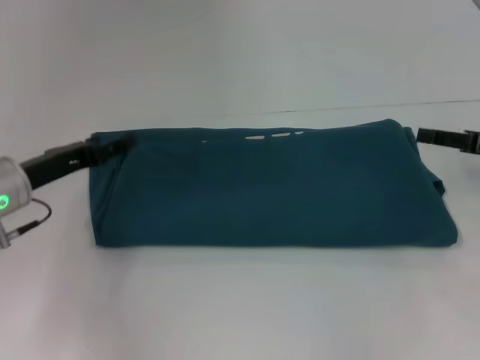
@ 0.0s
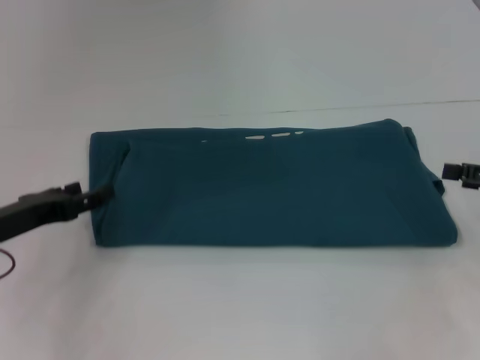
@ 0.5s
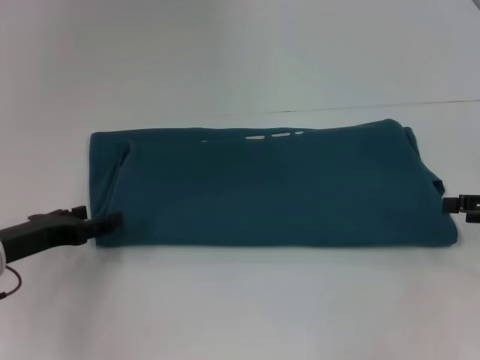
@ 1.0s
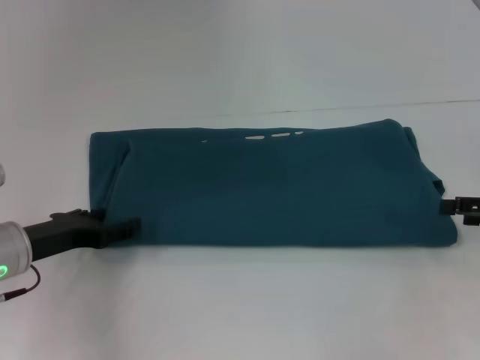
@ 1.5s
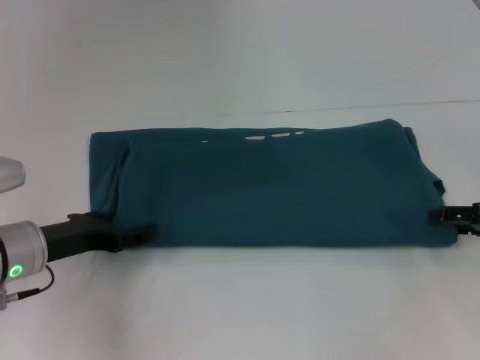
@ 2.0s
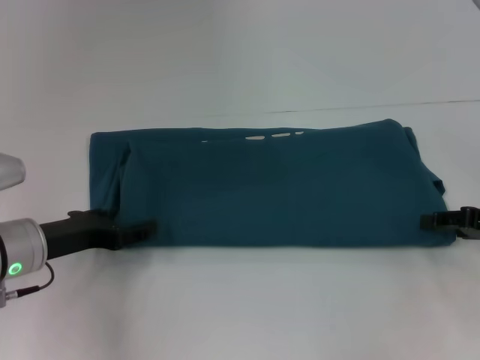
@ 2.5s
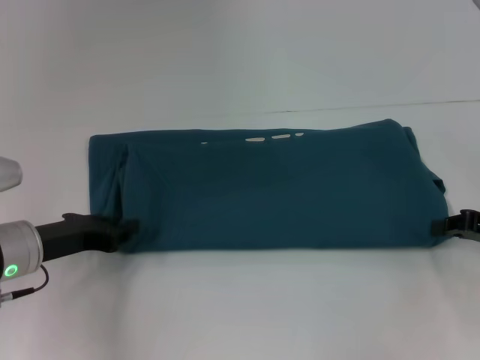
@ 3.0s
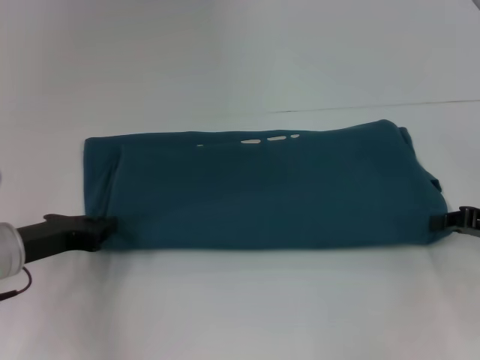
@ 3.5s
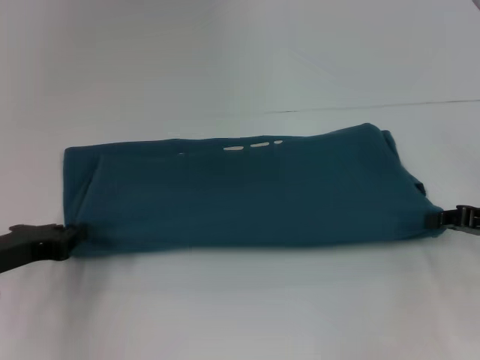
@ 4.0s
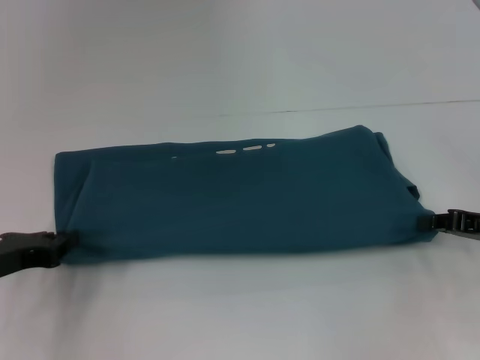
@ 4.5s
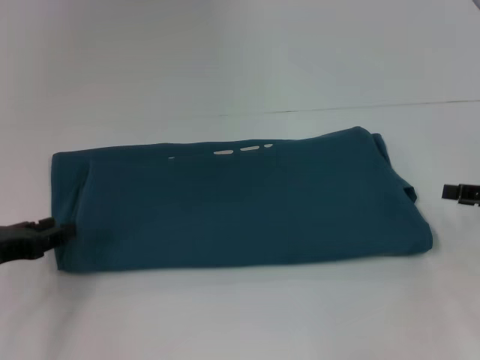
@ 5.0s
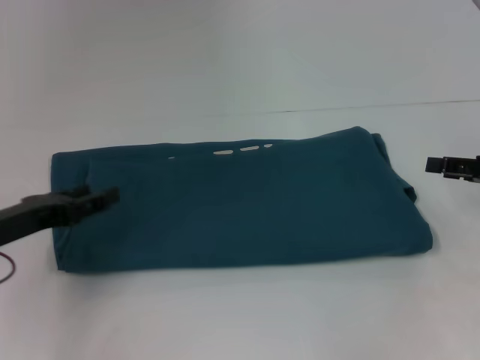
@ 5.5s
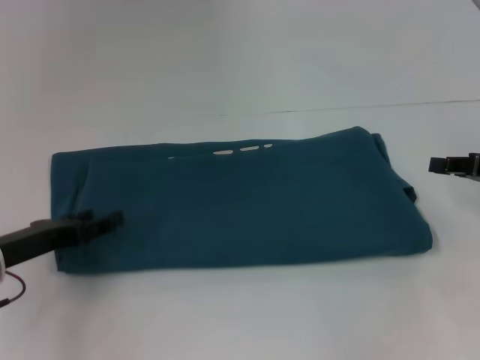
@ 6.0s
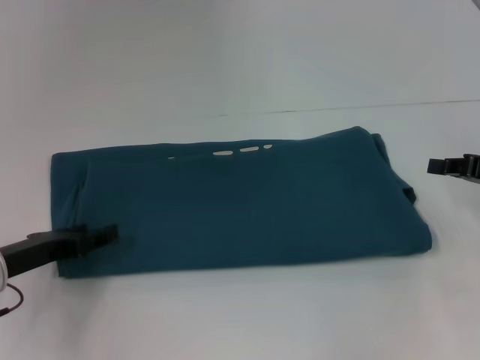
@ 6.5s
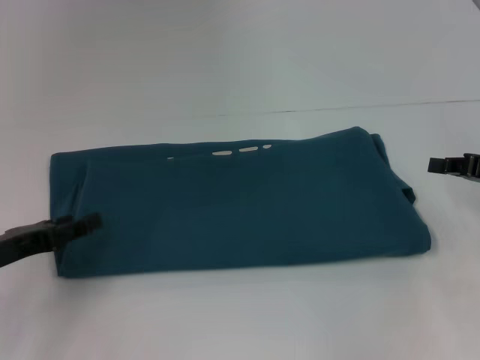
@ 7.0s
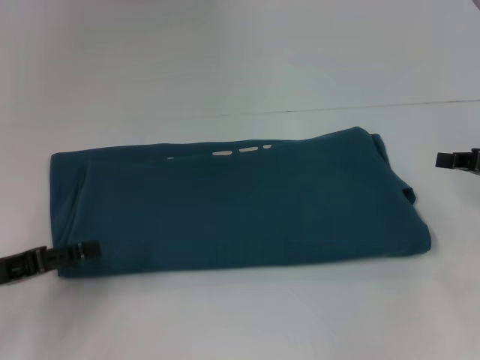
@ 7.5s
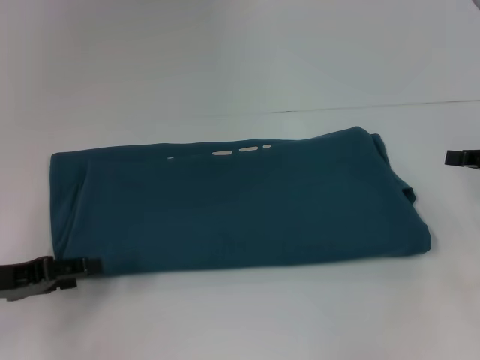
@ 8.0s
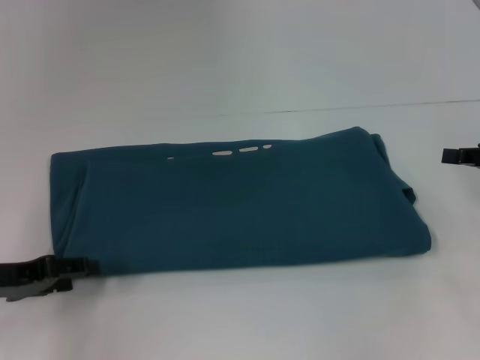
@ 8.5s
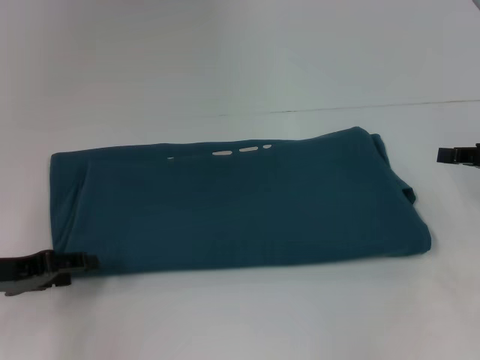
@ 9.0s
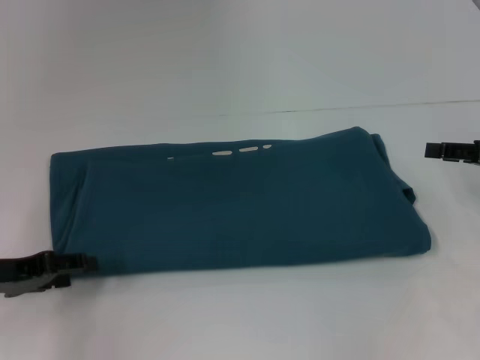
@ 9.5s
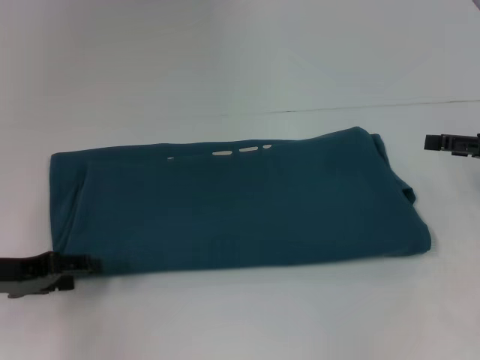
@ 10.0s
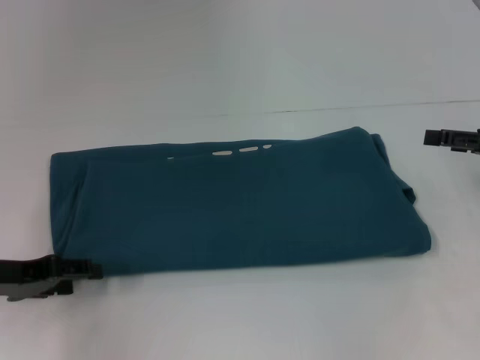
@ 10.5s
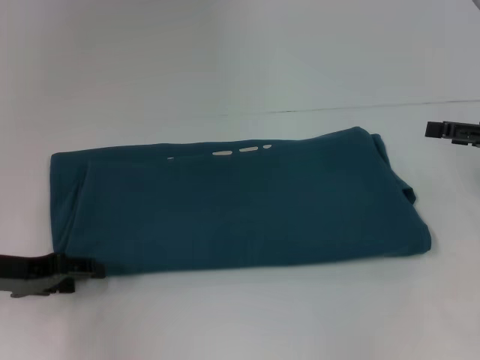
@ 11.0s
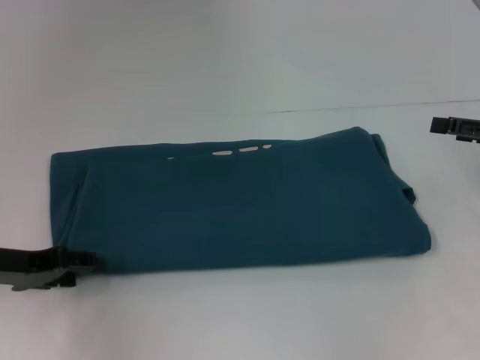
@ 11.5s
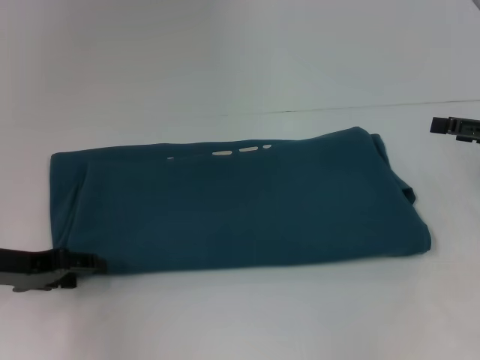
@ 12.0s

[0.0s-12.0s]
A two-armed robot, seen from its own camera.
0.0s to 2.0s: The left gripper changes place by approximately 5 cm, while the right gripper ends up approximately 5 cm from where it was.
2.0s to 4.0s: The right gripper closes up; the left gripper ends up roughly 5 cm from where it was, and closes its fingers.
4.0s to 6.0s: The left gripper opens up, while the right gripper opens and closes again.
8.0s to 10.0s: The right gripper opens up.
10.0s to 12.0s: The grippers make only small movements.

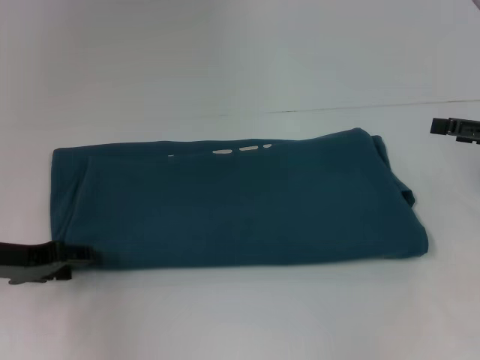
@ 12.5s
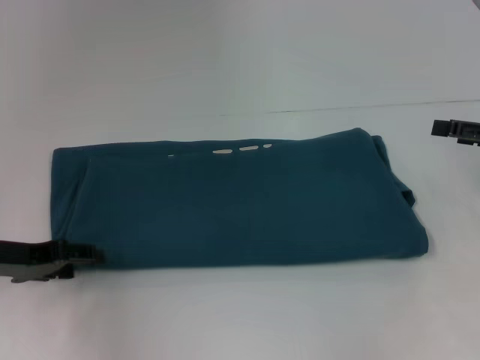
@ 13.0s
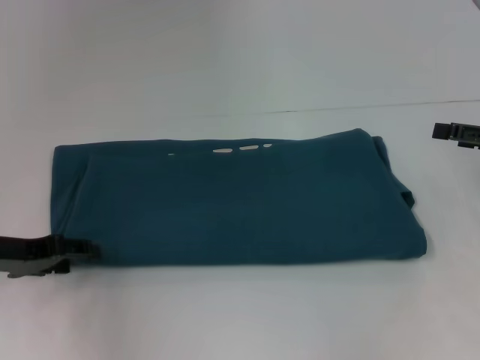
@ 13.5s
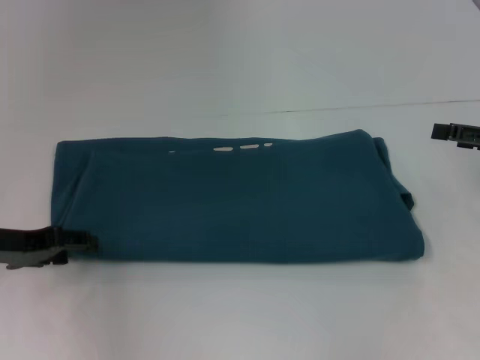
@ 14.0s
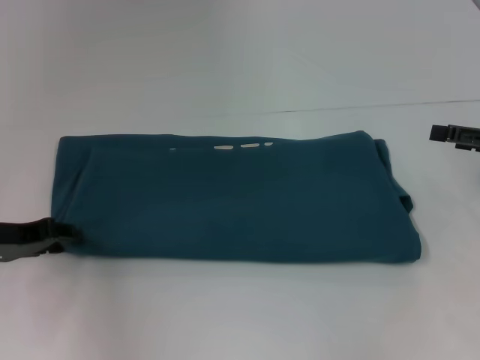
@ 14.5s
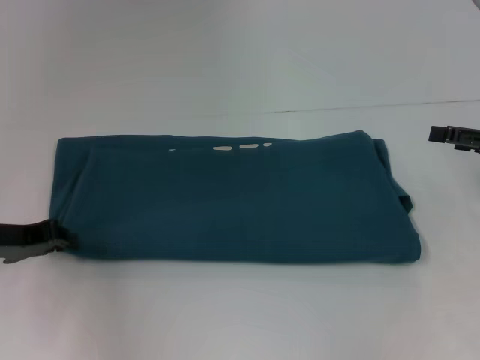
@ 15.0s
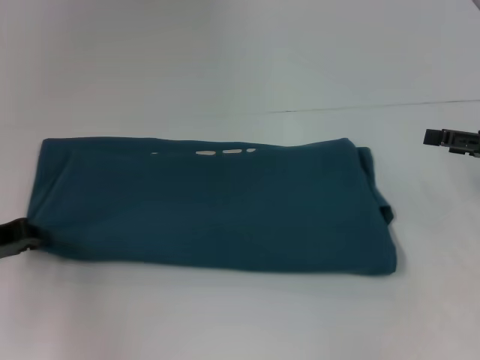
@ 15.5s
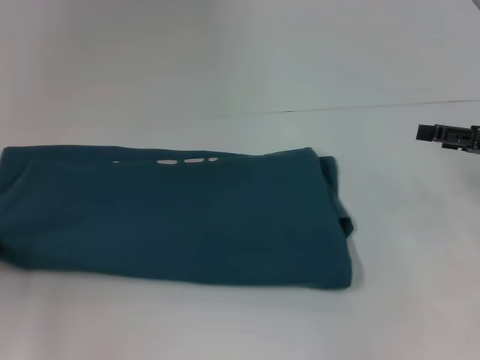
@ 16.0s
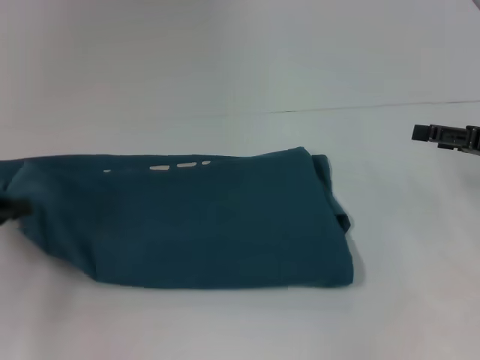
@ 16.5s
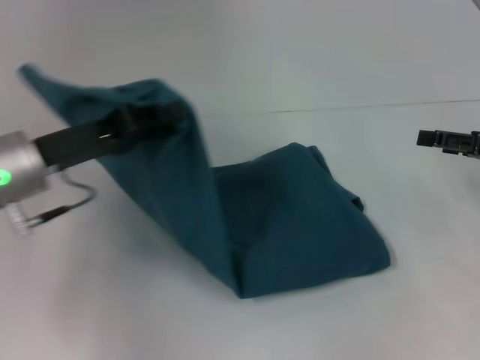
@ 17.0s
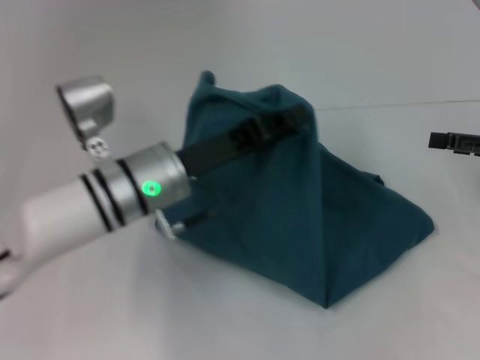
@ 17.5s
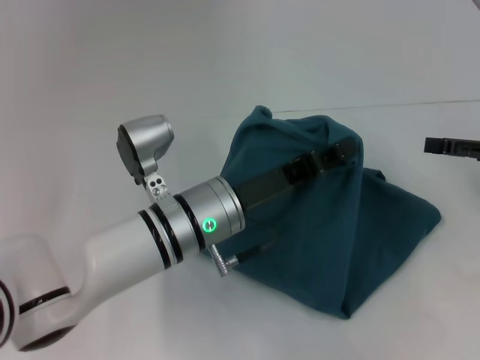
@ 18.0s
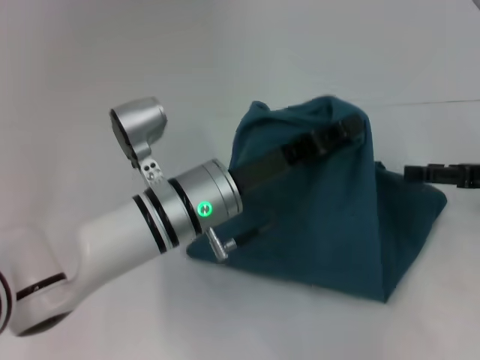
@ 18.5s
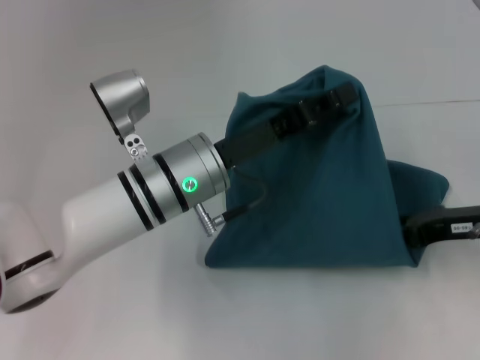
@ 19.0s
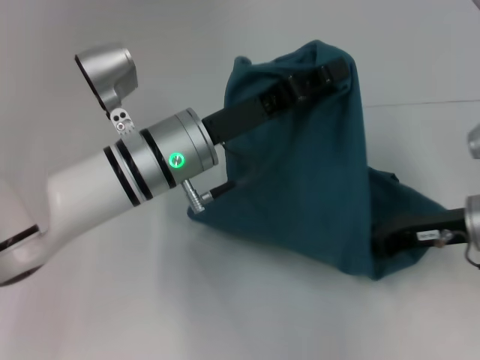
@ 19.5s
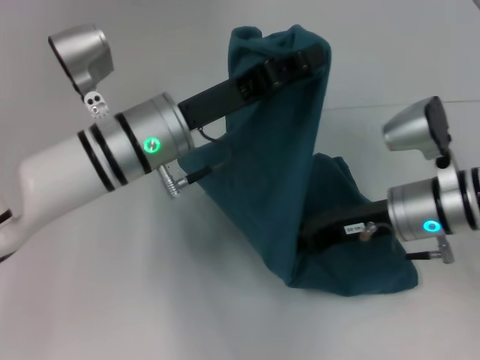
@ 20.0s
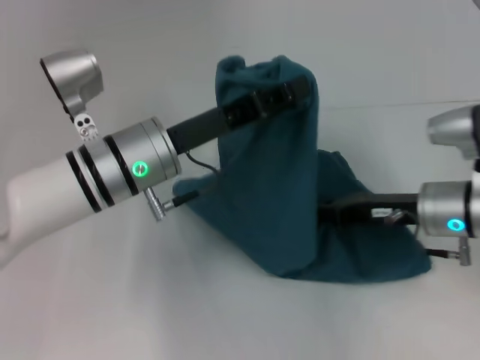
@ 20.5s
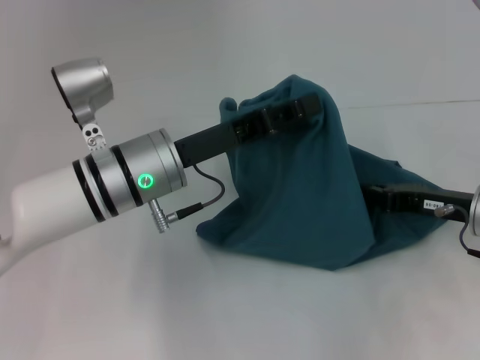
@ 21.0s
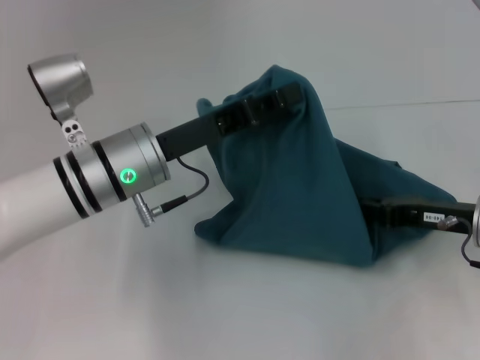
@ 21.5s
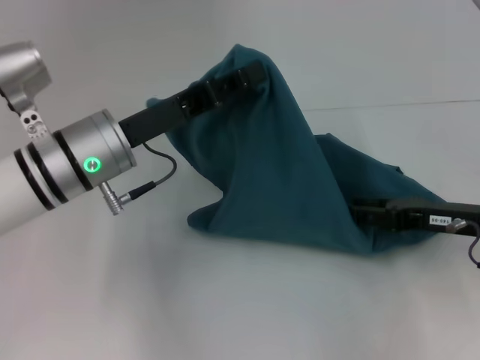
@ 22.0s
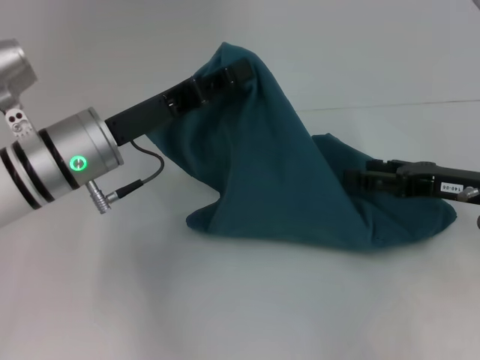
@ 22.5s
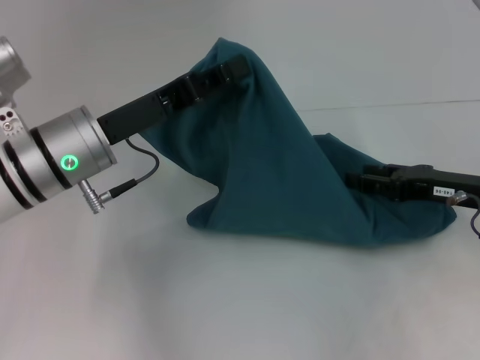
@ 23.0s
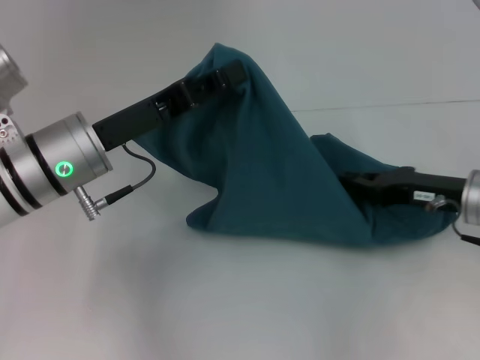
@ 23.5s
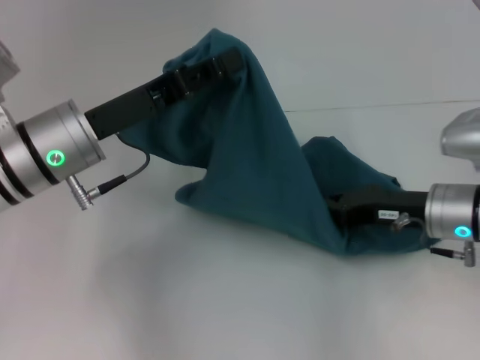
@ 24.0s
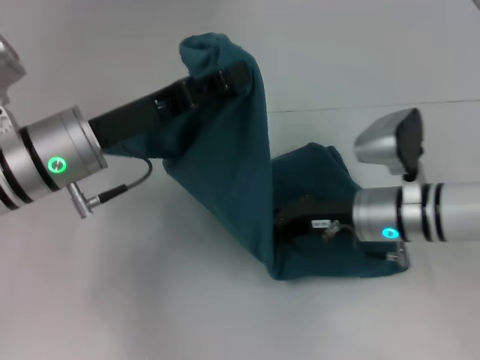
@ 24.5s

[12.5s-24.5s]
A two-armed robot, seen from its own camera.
12.5s to 14.5s: There are only small adjustments of the grippers.
14.5s to 16.5s: The left gripper moves to the left, roughly 5 cm, and closes its fingers.
16.5s to 18.5s: The left gripper is displaced to the right by roughly 30 cm.
18.5s to 20.5s: The left gripper travels to the left by about 5 cm. Meanwhile the right gripper moves to the left, roughly 10 cm, and closes up.
20.5s to 22.5s: The right gripper moves to the right, some 5 cm, and opens.
22.5s to 24.5s: The right gripper moves to the left, roughly 10 cm, and closes.

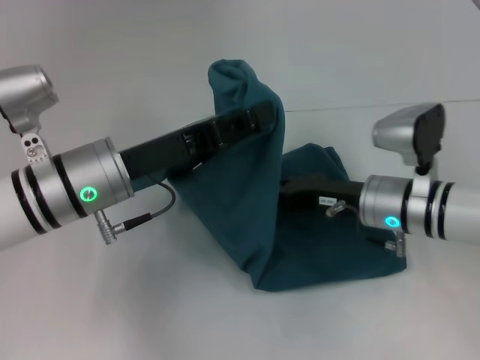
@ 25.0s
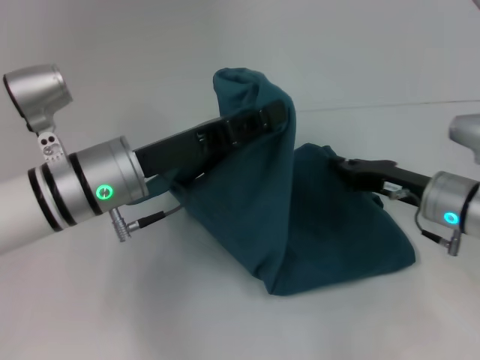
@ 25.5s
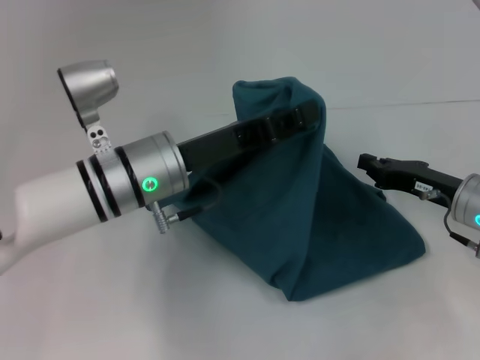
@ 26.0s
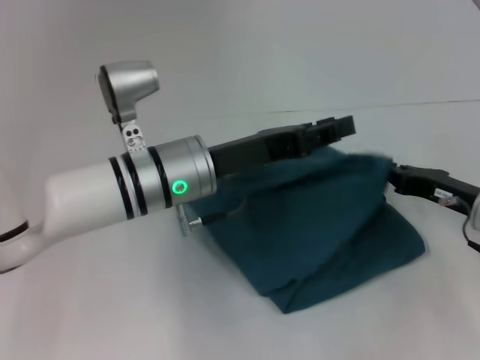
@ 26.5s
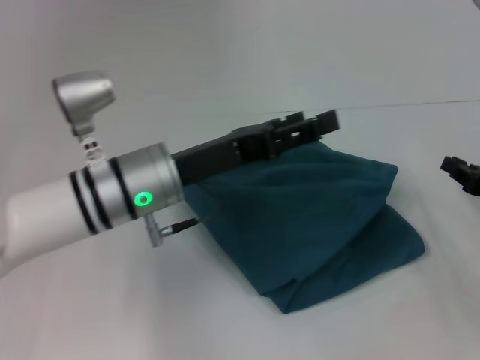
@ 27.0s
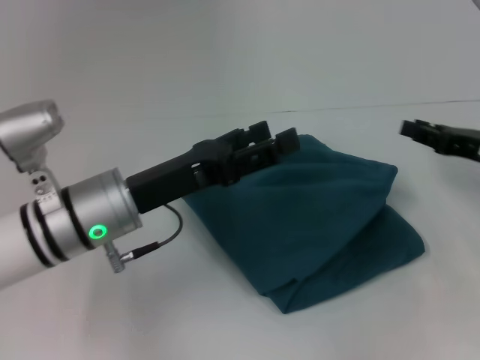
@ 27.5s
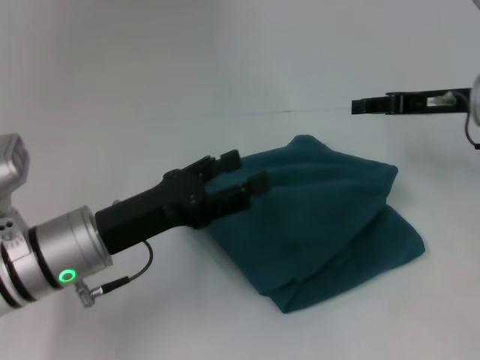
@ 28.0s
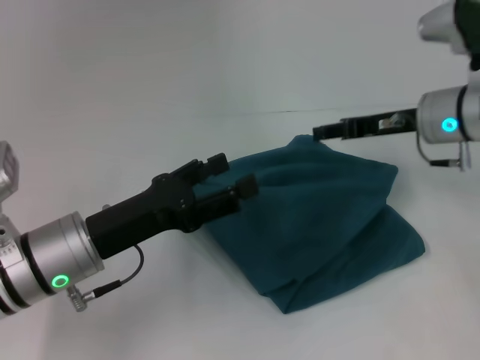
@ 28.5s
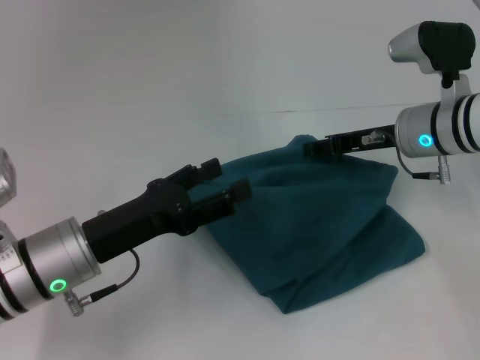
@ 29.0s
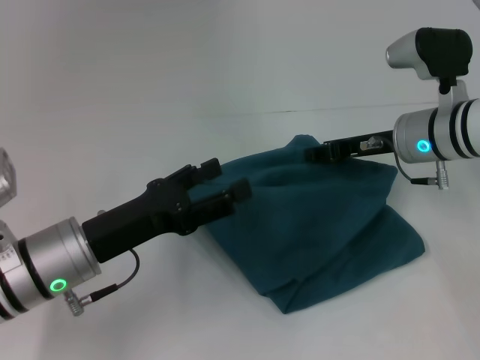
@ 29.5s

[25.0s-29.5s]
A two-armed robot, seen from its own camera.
Step, 25.0s to 26.5s: Fold the clothes to the left.
25.0s to 27.0s: The left gripper opens up; the right gripper heads to the right, covering some 15 cm.
27.0s to 29.5s: The right gripper moves to the left, forward and upward, approximately 20 cm, and opens its fingers, while the left gripper goes roughly 10 cm to the left and backward.
